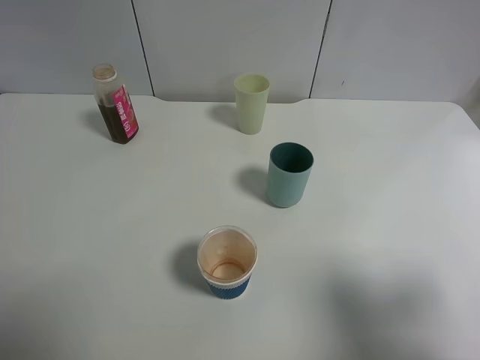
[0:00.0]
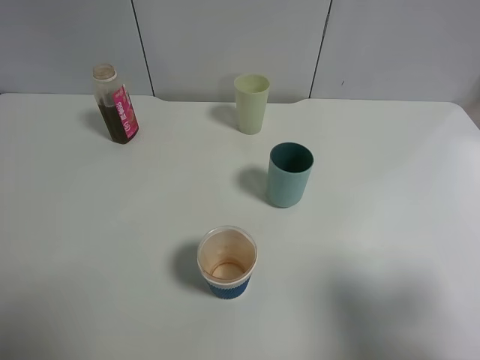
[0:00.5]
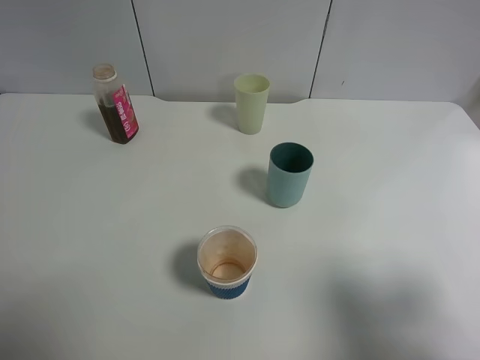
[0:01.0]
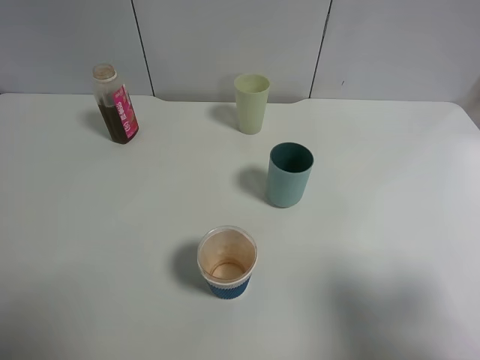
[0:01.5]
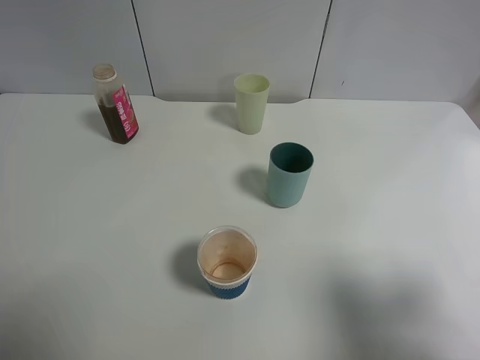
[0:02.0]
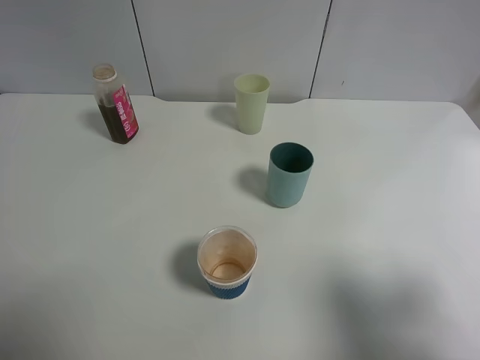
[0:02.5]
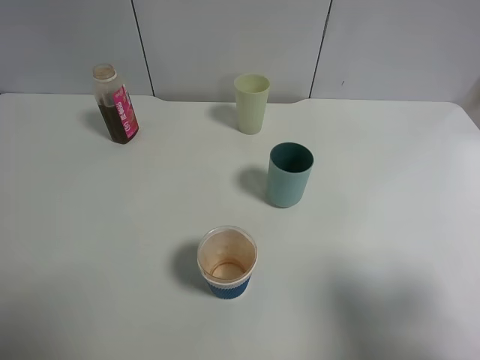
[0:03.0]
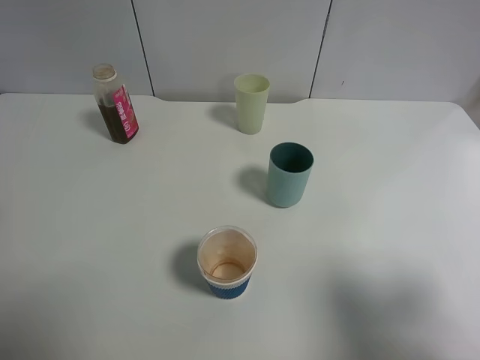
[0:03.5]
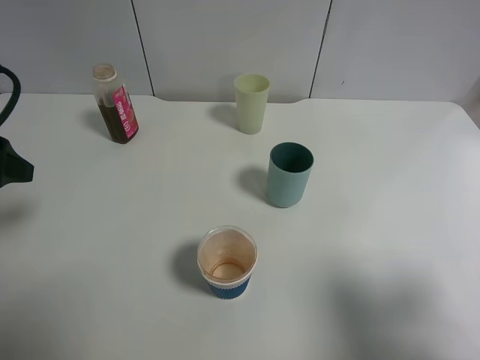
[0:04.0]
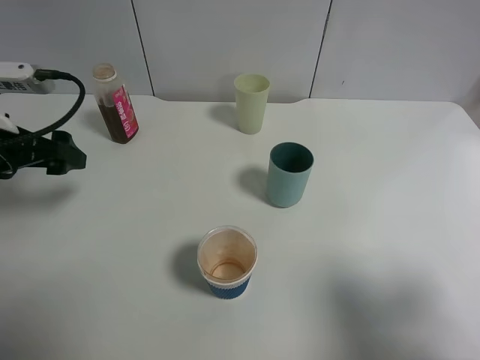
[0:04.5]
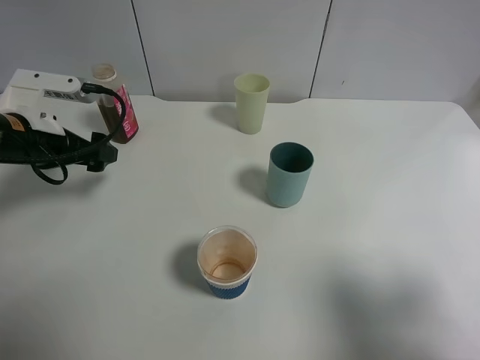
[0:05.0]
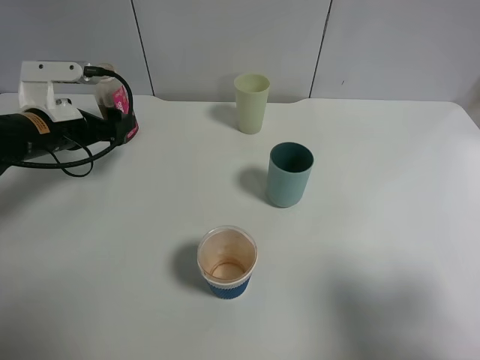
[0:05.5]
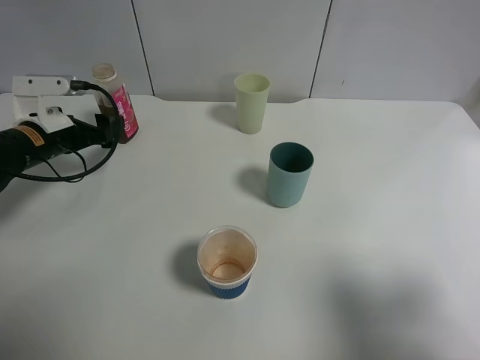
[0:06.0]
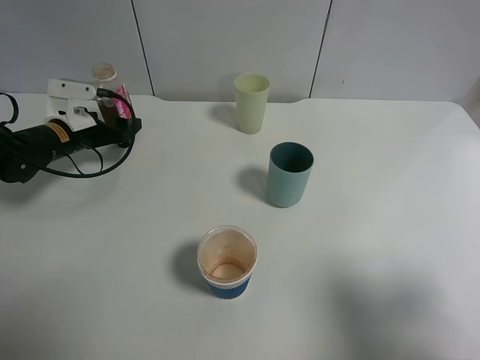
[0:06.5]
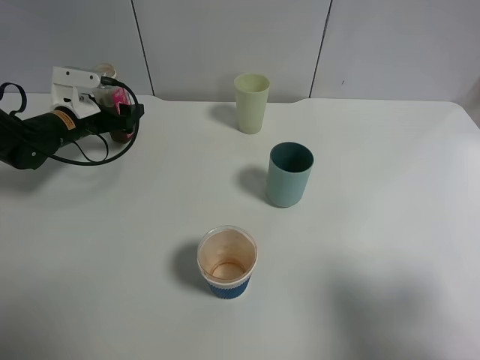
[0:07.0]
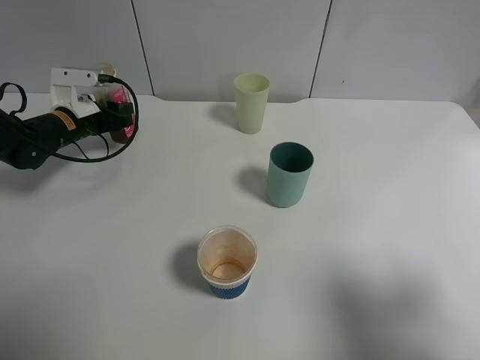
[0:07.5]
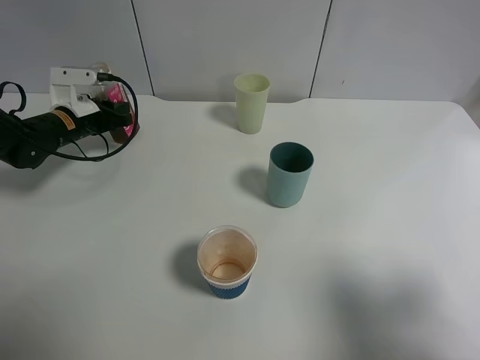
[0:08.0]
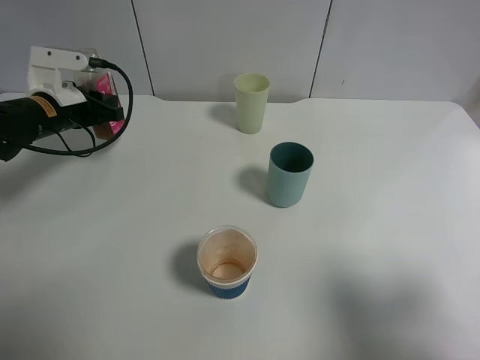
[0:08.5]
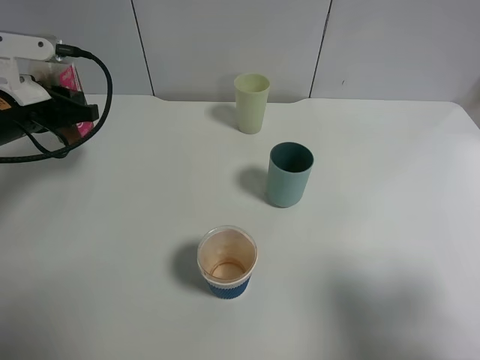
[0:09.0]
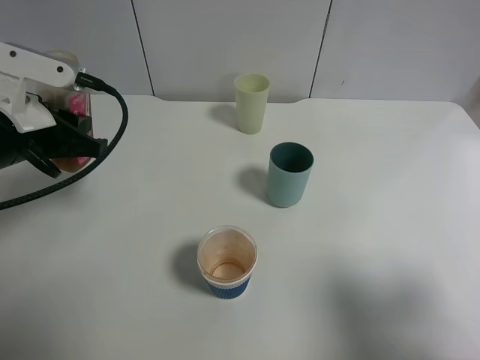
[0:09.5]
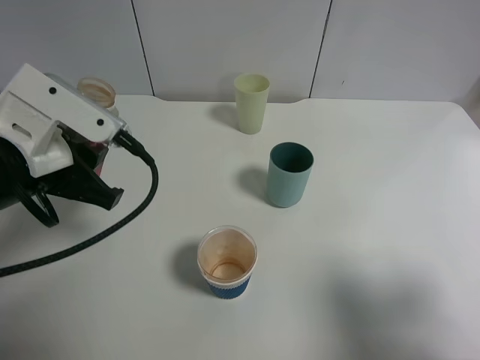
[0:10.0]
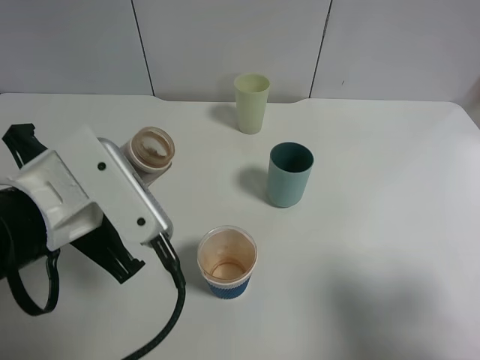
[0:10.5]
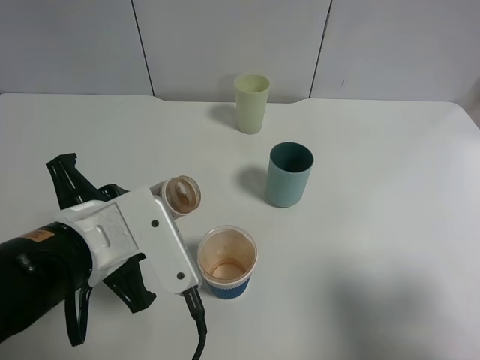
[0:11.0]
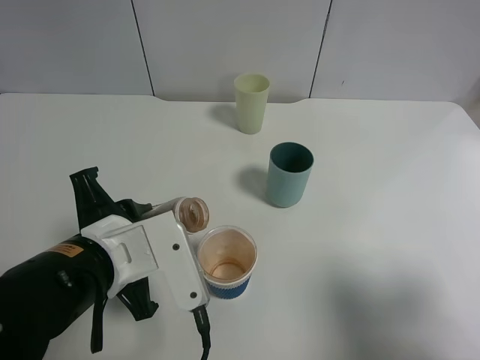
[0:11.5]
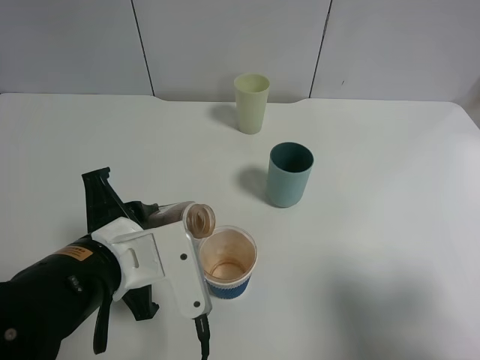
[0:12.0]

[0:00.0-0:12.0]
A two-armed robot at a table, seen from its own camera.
Task of the whole recording: use a gripper to hold the bottle of the drink and pour it into a random cup.
Step, 0:00.0 to 0:08.0: Grasp the cranberry juice bottle with the left gripper.
0:00.0 to 0:02.0: Both grippers stay about where they are.
0:02.0 to 0:04.0: The left gripper heads forward, covering about 20 cm.
0:04.0 to 0:06.0: The left gripper travels forward and downward by roughly 20 cm.
0:06.0 to 0:08.0: The left gripper travels forward by approximately 5 cm, and closes.
0:08.0 to 0:10.0: The left gripper travels backward and upward by about 25 cm.
0:10.0 to 0:12.0: The left gripper is displaced to the right and downward by roughly 10 cm.

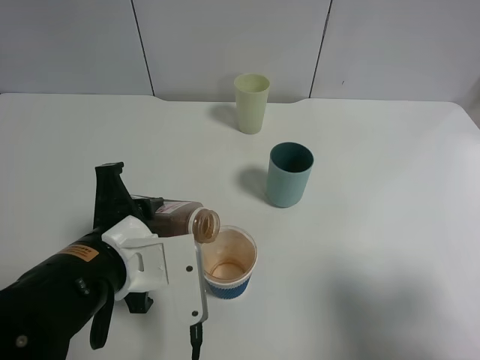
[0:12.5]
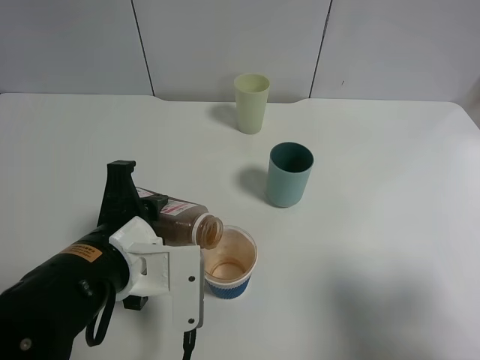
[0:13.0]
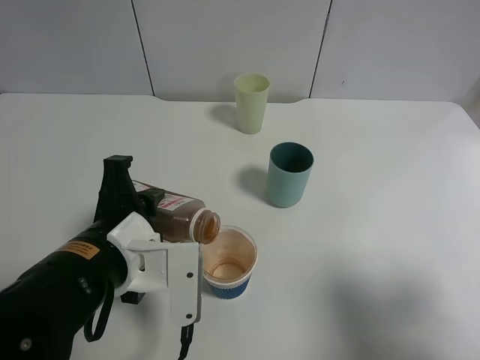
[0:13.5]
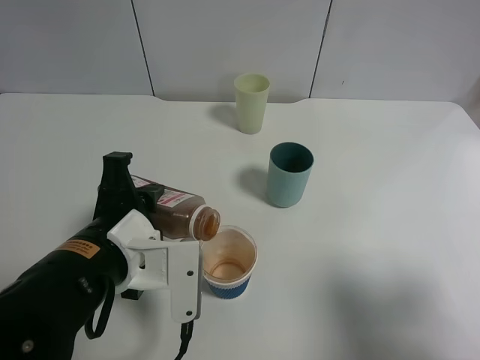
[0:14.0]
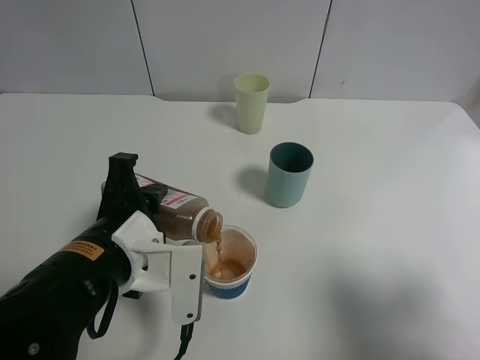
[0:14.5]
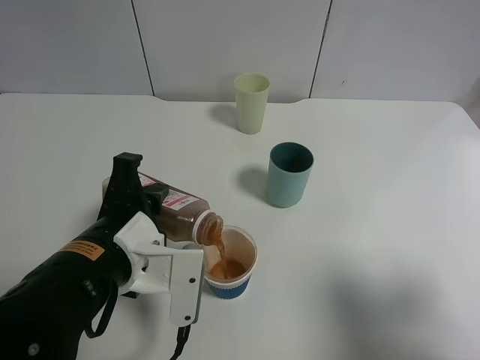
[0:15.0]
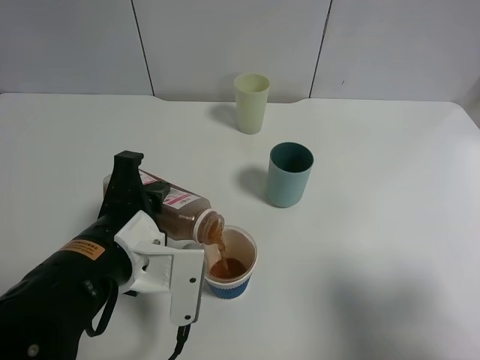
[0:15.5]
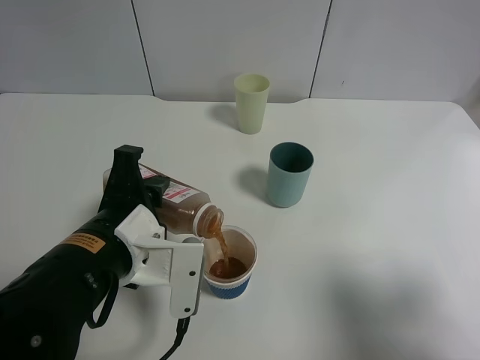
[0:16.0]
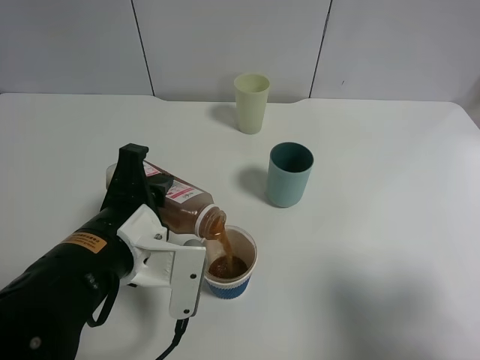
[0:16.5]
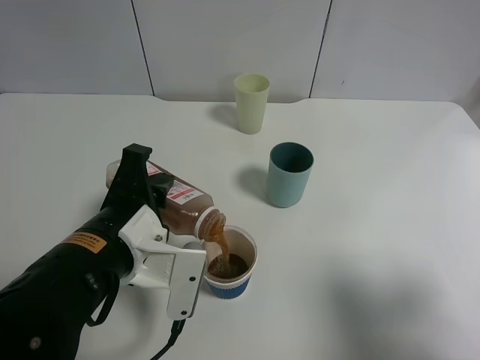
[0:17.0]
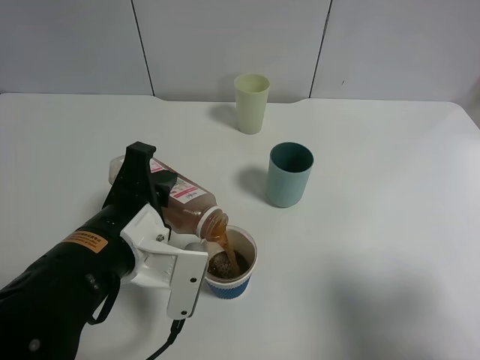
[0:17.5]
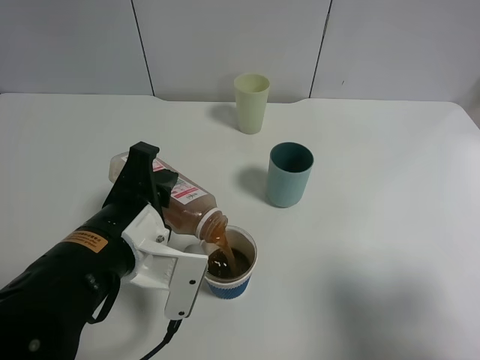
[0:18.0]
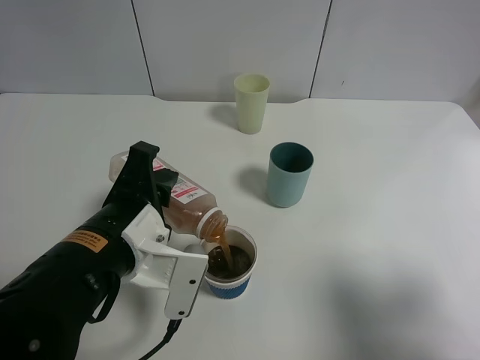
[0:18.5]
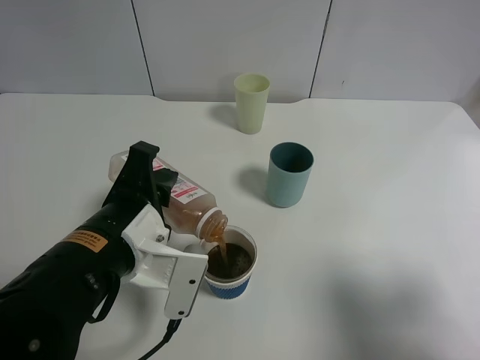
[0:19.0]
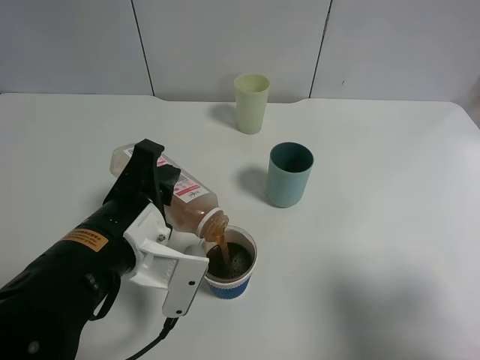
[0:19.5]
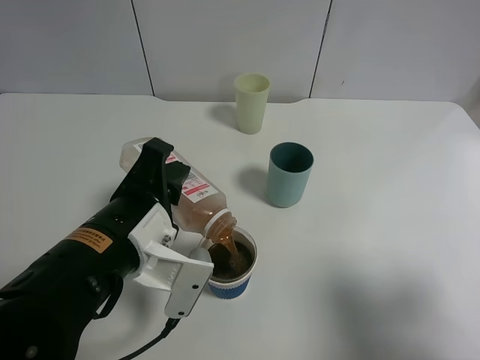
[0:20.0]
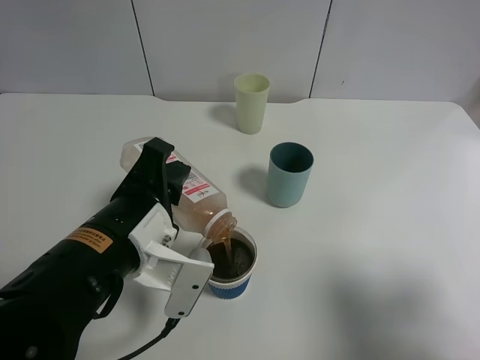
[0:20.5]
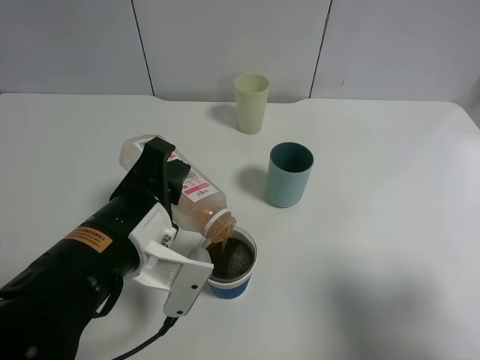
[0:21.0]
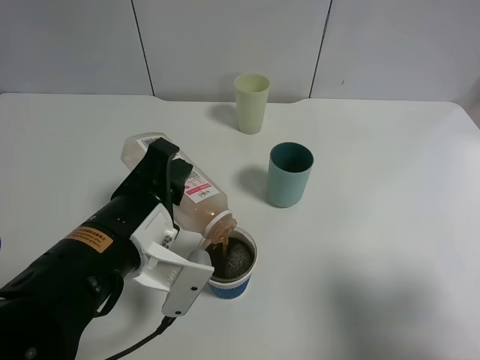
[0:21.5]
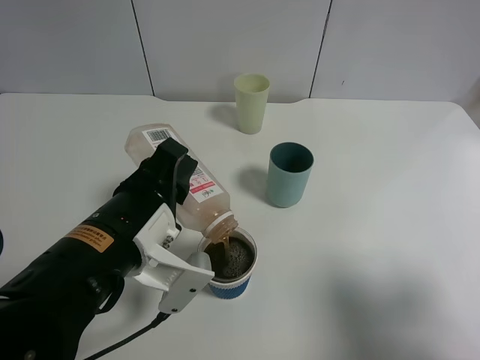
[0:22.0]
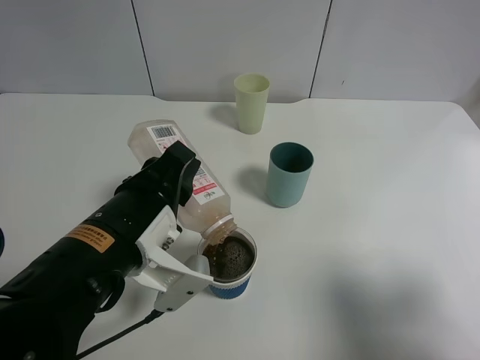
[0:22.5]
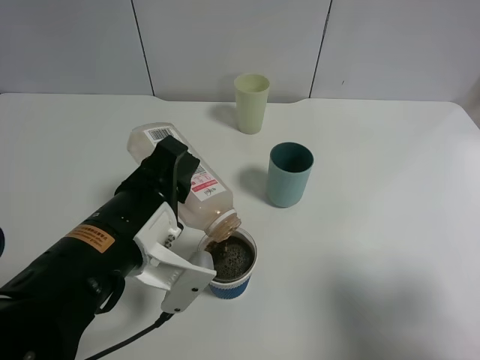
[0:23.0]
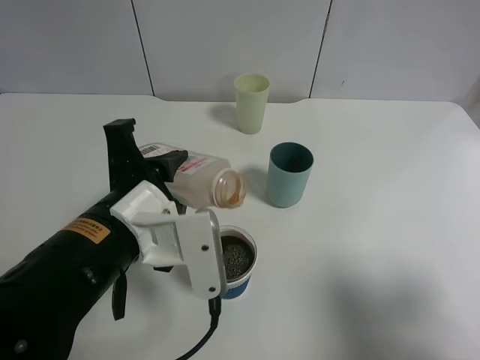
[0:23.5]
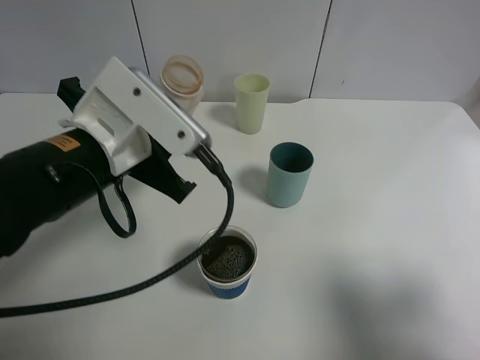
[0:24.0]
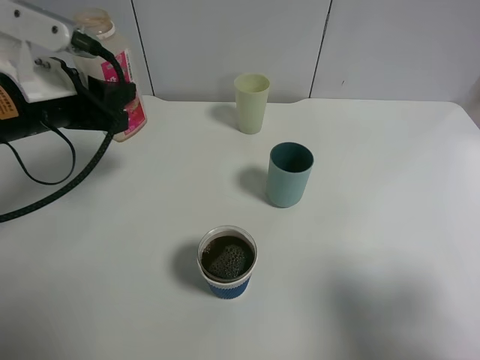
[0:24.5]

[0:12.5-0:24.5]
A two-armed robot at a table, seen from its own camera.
Task of the whole recording: use a gripper to hold the bottle of the drink and pour it into a random cup.
Step, 0:12.5 to 0:23.5: Pour the cranberry juice into the paper cup with the left gripper.
0:12.5 to 0:16.5: The grippers move only a little.
0:16.5 to 0:20.5: There are only small adjustments of the grippers.
0:20.5 to 0:22.5: There are only small adjustments of the grippers.
0:22.5 to 0:24.5: The left gripper goes some 15 cm forward, to the left and upward.

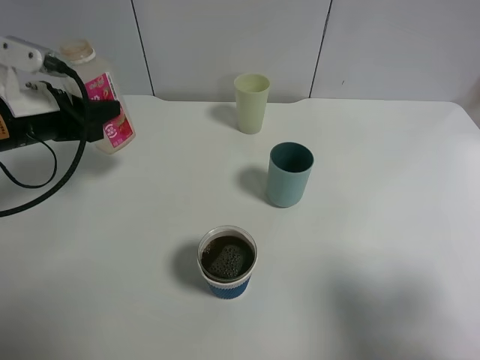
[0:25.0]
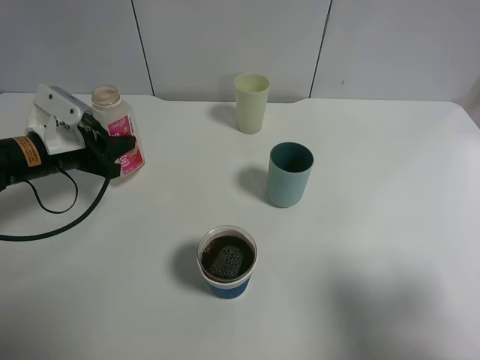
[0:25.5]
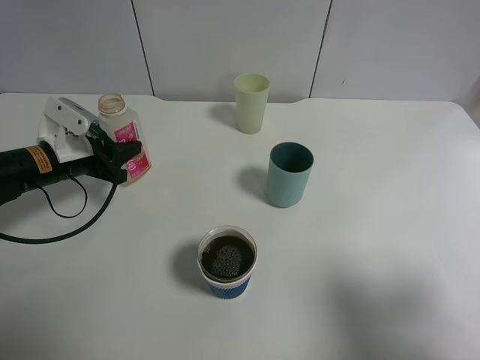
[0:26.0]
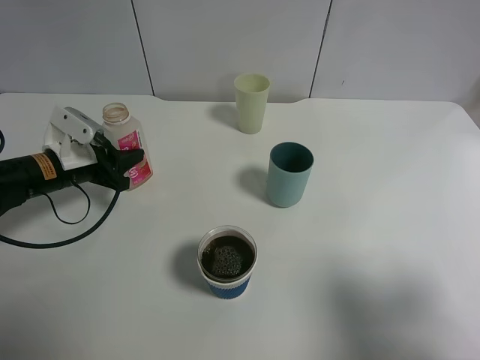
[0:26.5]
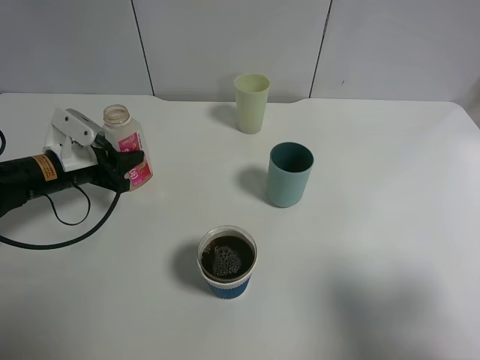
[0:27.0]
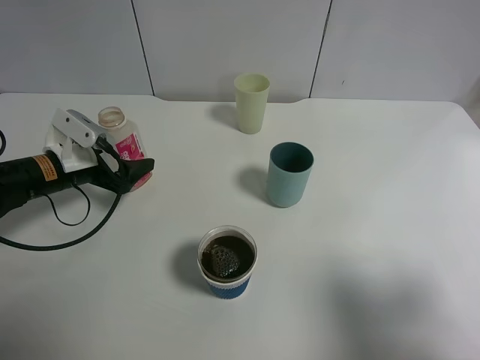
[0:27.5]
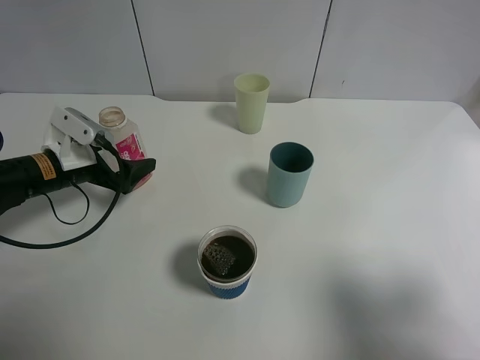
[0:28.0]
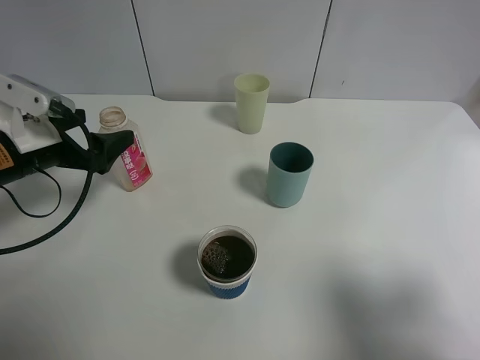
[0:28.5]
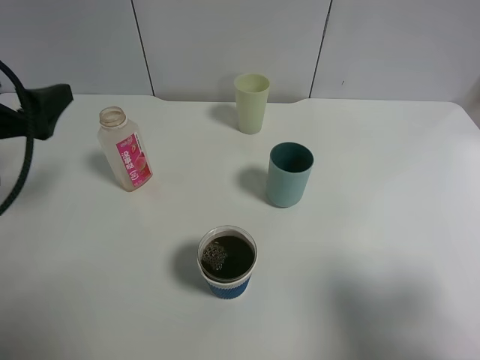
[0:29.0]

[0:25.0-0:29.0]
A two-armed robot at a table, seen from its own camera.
Task of the whole recording: use a gripper to hold the bottle of the drink and pour it into a random cup.
Step, 0:25.0 to 0:28.0: Place the cranberry juice bottle on the table with the left gripper.
0:25.0 to 0:27.0: The left gripper is displaced downward by roughly 10 cm.
0:27.0 to 0:29.0: The left gripper shifts approximately 15 cm upward and backward, and opens up.
